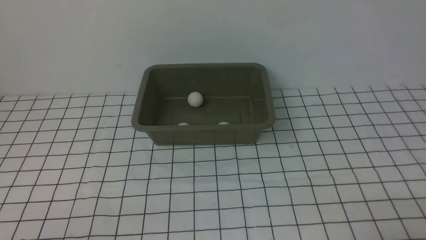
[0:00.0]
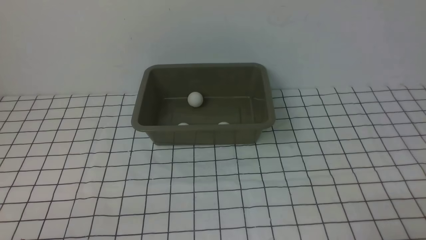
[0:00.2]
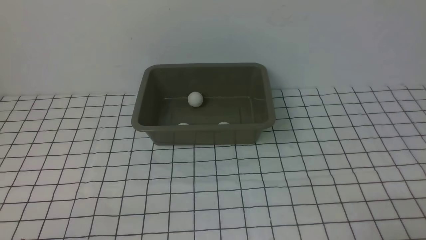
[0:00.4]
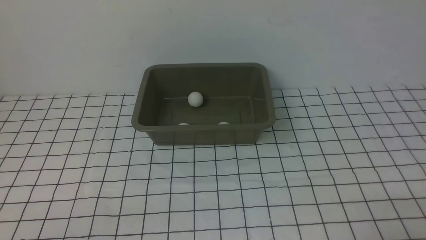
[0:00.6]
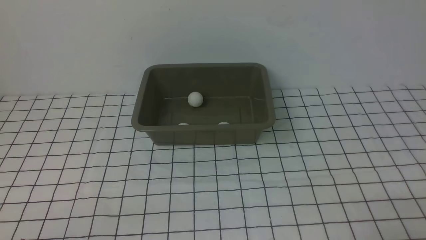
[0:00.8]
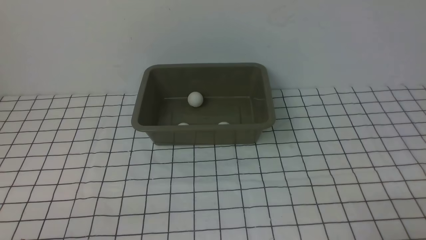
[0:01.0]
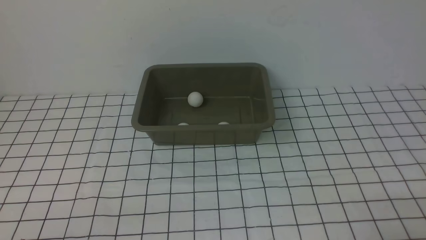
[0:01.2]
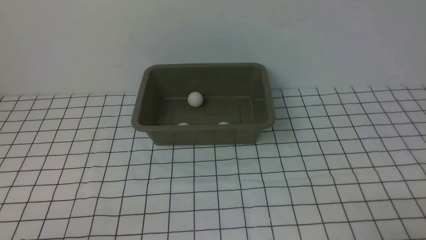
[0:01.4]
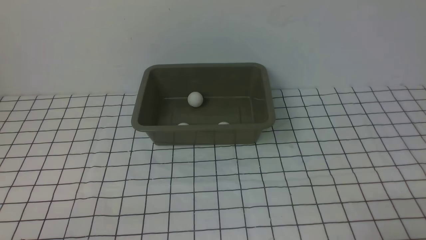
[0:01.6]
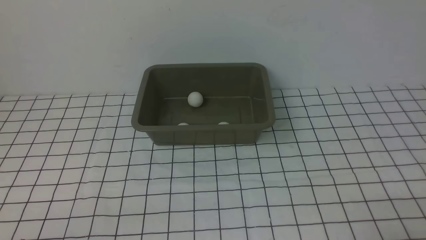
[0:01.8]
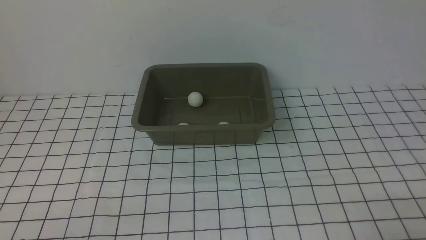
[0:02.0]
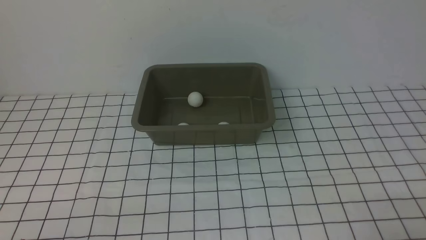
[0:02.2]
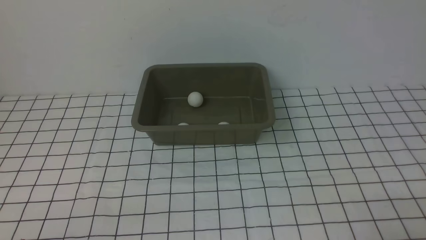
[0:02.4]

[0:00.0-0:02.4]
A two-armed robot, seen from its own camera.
0:00.0 to 0:02.4: Both grippers stay put.
